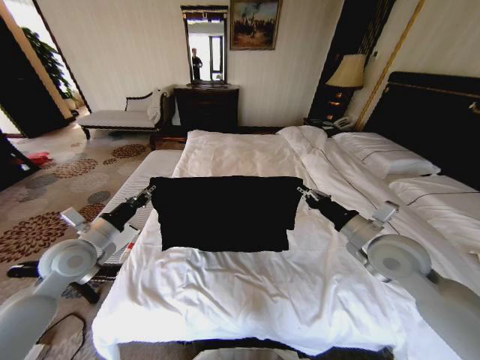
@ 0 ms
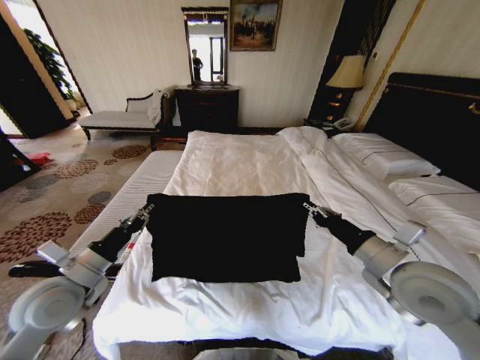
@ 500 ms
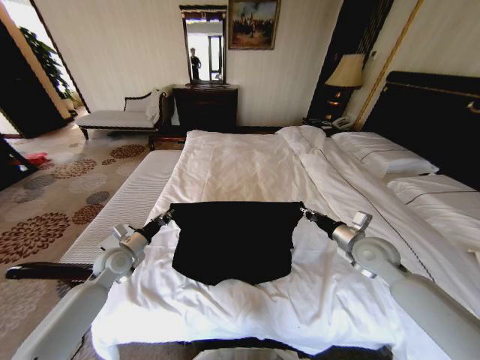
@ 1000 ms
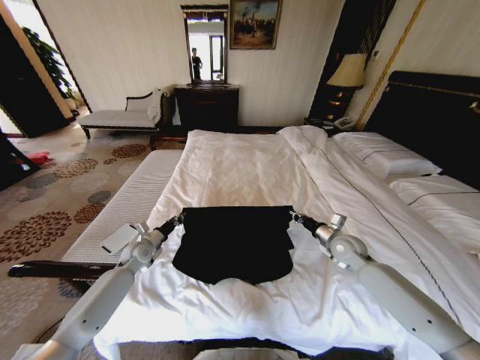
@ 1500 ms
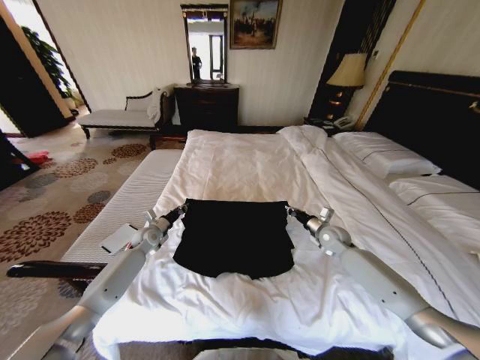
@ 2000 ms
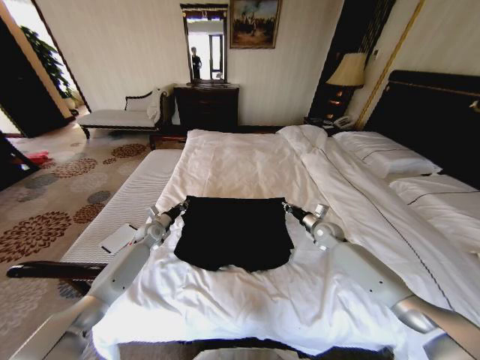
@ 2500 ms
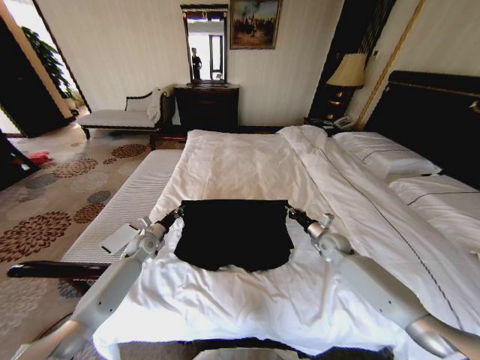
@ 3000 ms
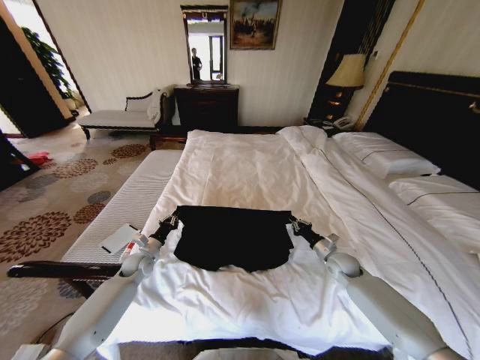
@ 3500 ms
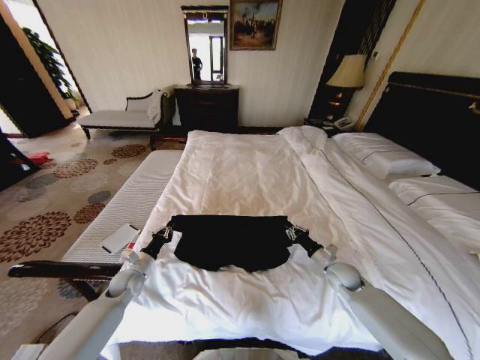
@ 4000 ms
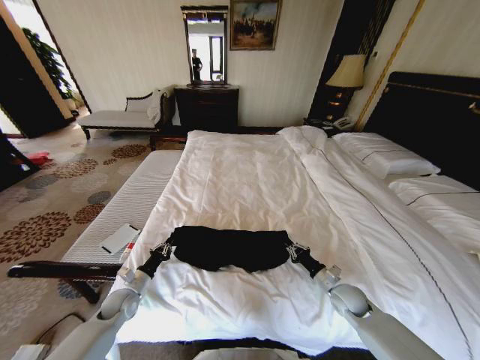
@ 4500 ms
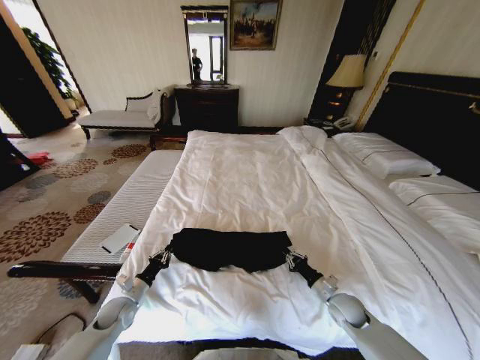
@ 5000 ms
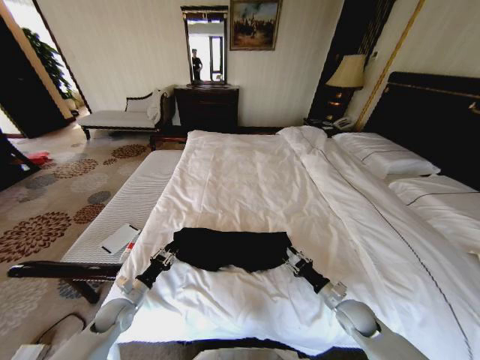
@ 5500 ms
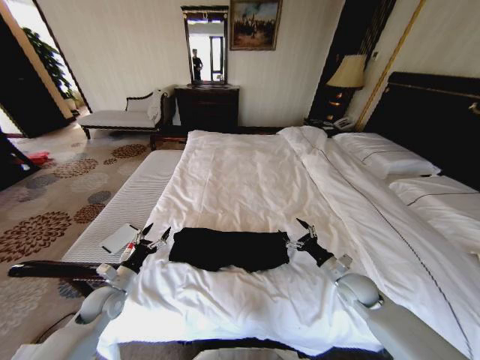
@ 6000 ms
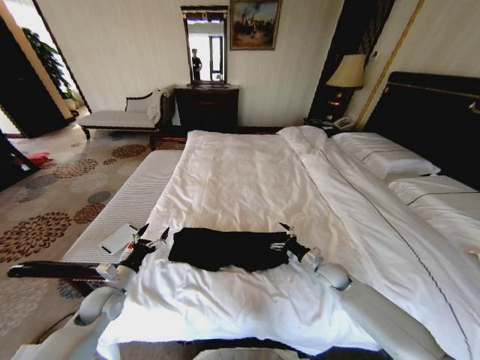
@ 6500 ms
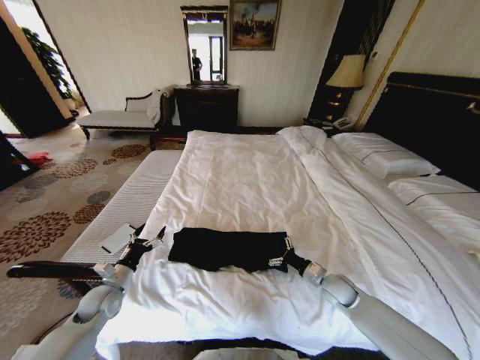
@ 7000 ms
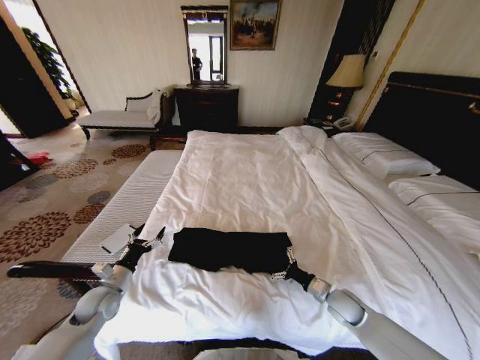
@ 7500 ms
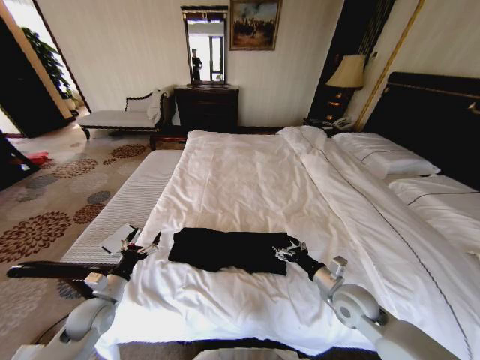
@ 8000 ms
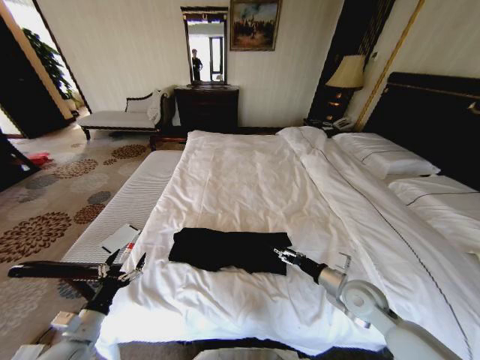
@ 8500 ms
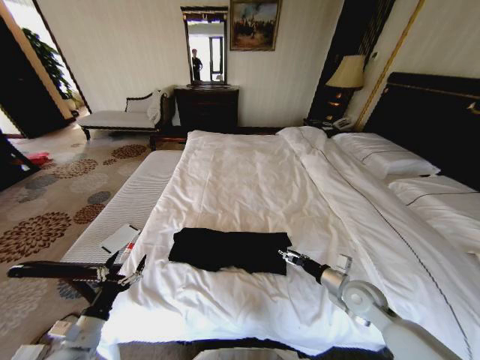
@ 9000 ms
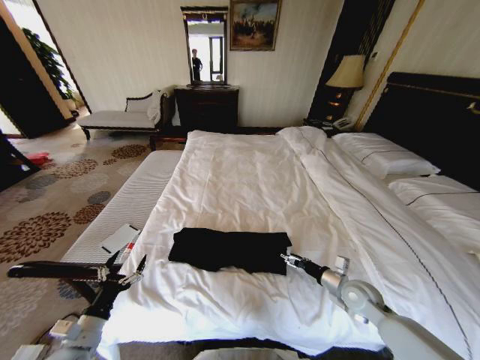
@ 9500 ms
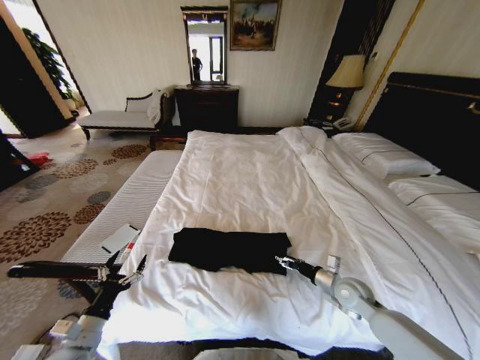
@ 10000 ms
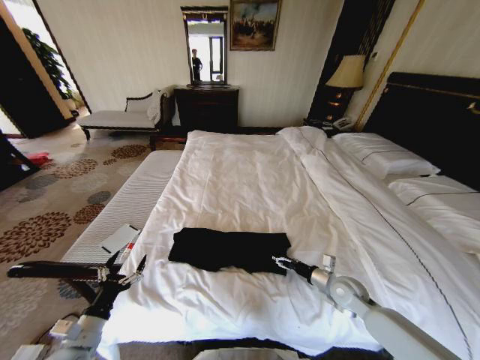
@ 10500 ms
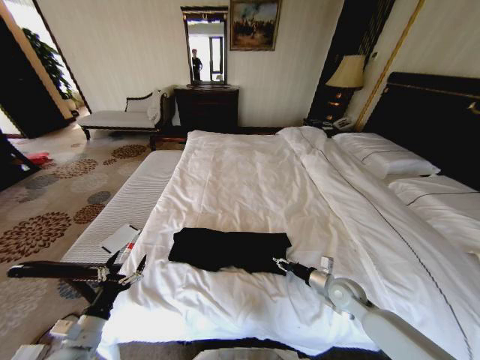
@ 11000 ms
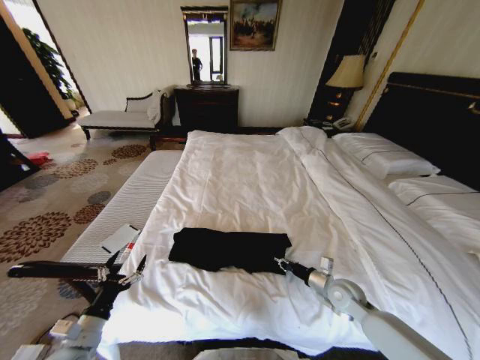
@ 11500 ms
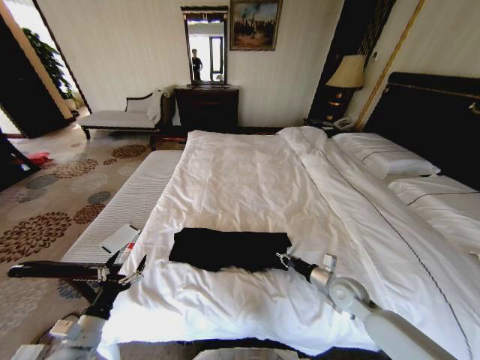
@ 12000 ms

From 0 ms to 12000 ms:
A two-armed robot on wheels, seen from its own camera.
Task of the whole recording: Fold the clothes on the bed.
From 0 ms to 2000 ms: Both grippers travel together downward and forward, some 25 cm.
From 2000 ms to 4000 ms: The left gripper heads backward, covering about 15 cm. The right gripper heads backward and downward, covering about 15 cm.
From 4000 ms to 6000 ms: The right gripper opens its fingers. Meanwhile the left gripper moves backward, about 5 cm, and opens up.
From 6000 ms to 8000 ms: The right gripper travels to the left and backward by about 10 cm.
From 8000 ms to 10000 ms: The left gripper moves backward, roughly 10 cm; the right gripper shifts by some 10 cm.
From 10000 ms to 12000 ms: The right gripper closes up.

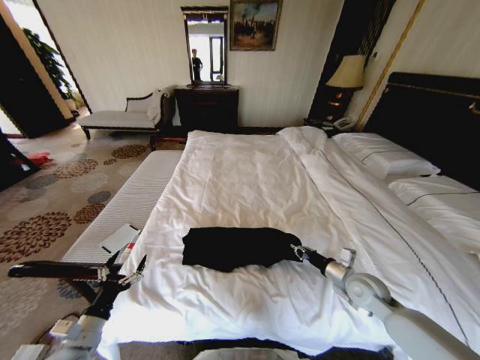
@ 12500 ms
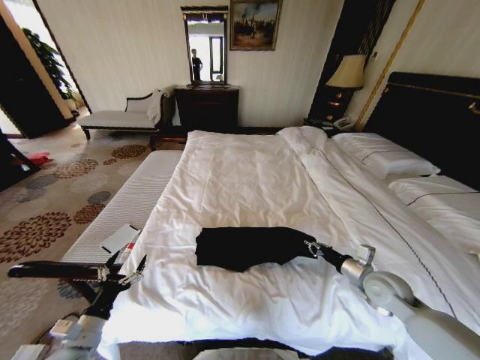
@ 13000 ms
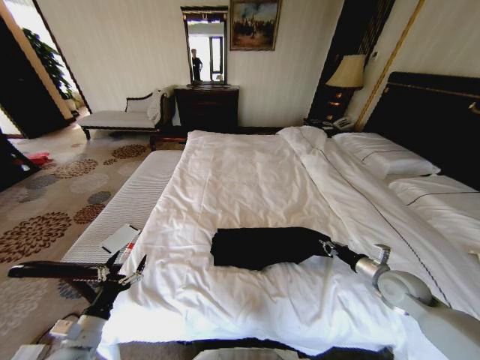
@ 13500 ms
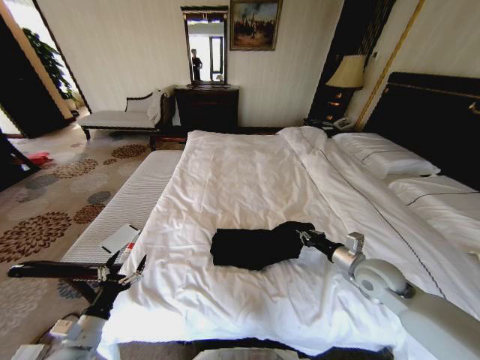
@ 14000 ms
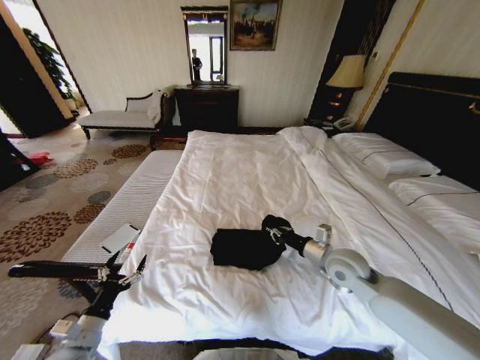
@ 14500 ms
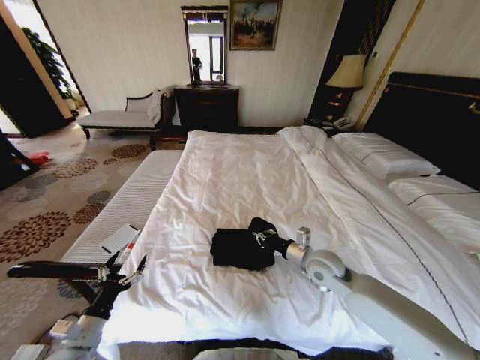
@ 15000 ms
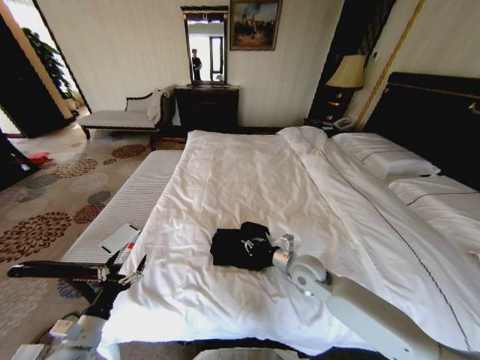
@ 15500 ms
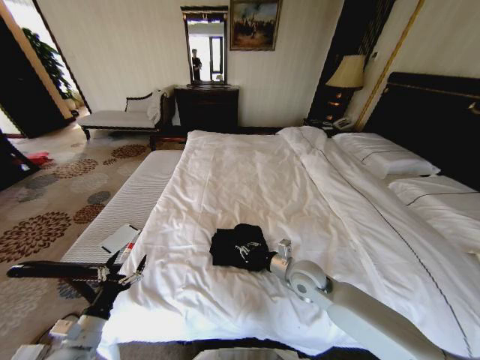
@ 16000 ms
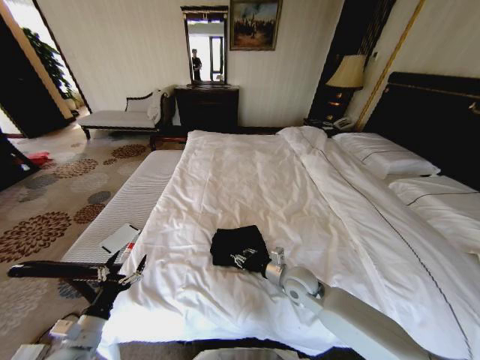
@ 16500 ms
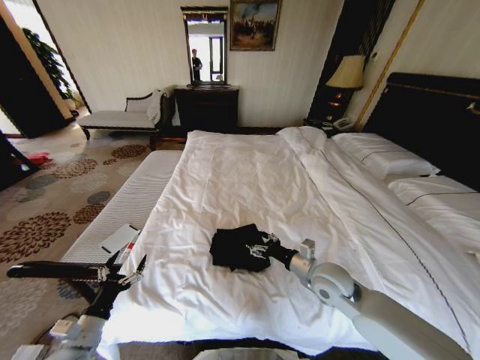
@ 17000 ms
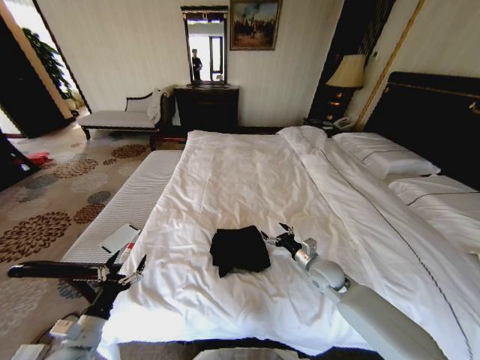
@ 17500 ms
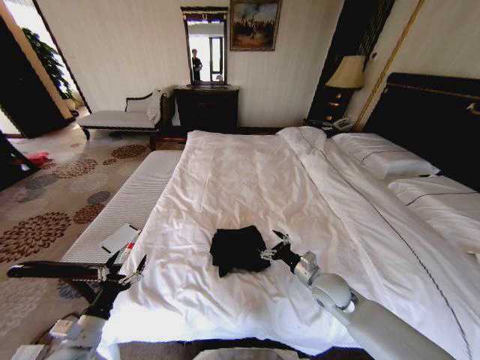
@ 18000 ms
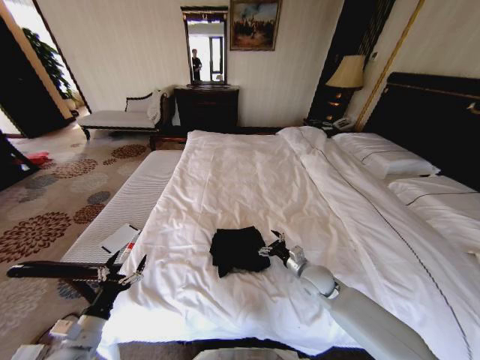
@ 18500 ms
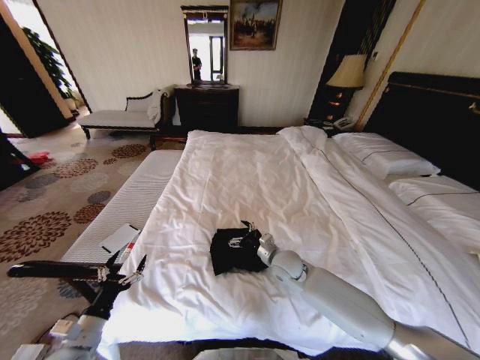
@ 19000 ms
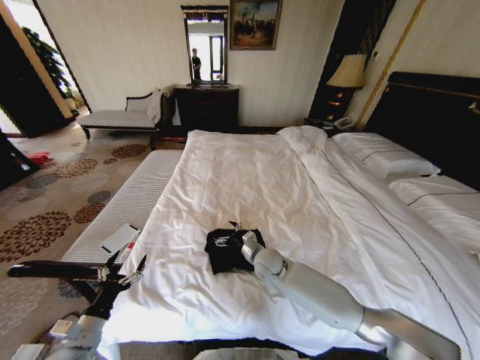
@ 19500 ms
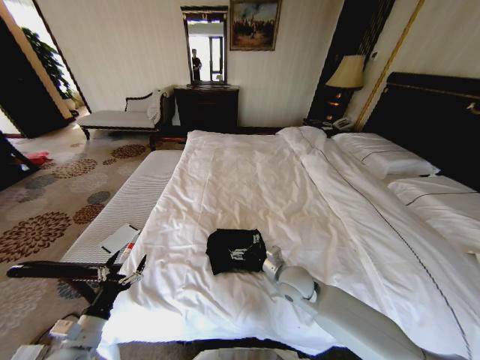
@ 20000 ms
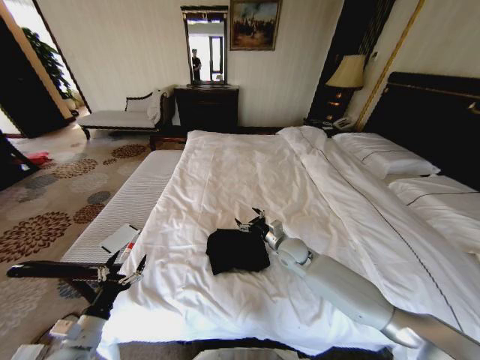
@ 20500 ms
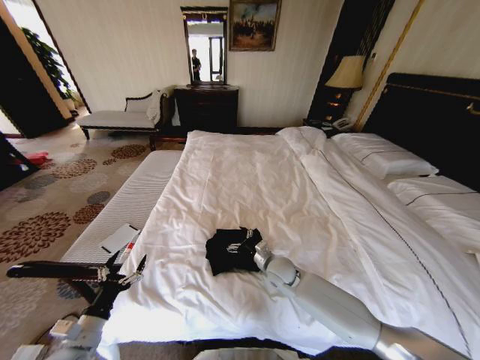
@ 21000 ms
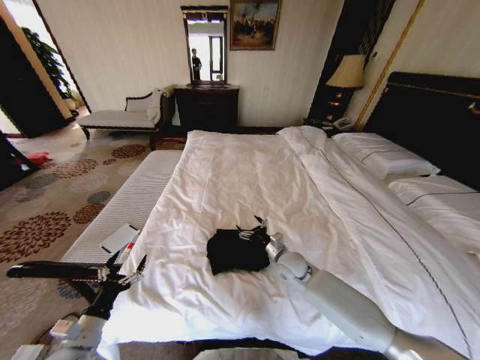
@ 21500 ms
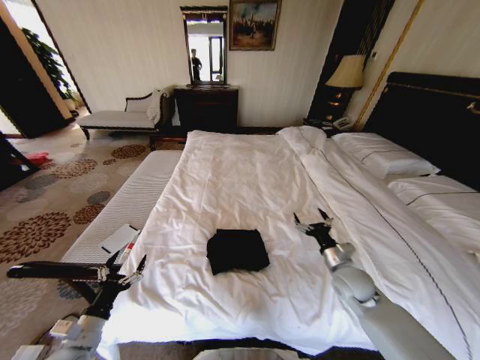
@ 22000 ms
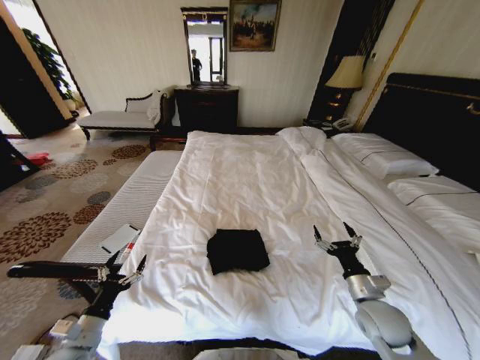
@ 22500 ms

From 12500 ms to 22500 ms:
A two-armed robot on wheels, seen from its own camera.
Task of the whole recording: Fold the clothes on the bed.
From 12500 ms to 14500 ms: The right gripper moves to the left and upward, approximately 10 cm.
From 14500 ms to 16500 ms: The right gripper goes some 15 cm downward and to the left.
From 16500 ms to 18500 ms: The right gripper moves to the right, roughly 5 cm, and opens its fingers.
From 18500 ms to 20500 ms: The right gripper moves forward and to the left, about 10 cm.
From 20500 ms to 22500 ms: The right gripper travels backward and to the right by about 25 cm.
